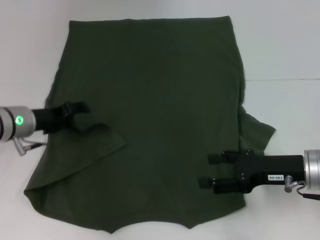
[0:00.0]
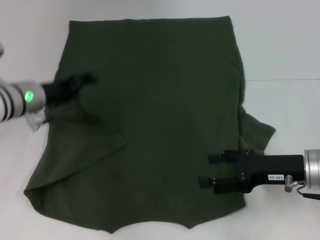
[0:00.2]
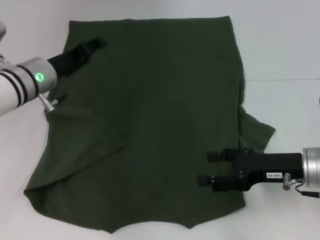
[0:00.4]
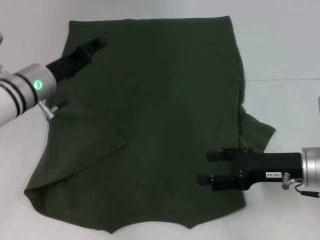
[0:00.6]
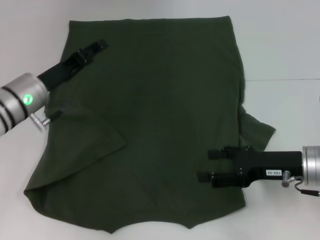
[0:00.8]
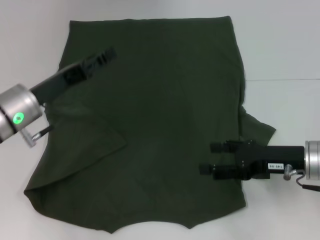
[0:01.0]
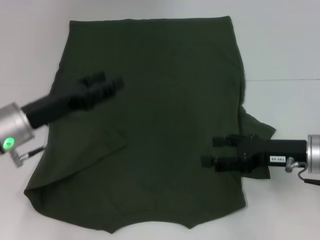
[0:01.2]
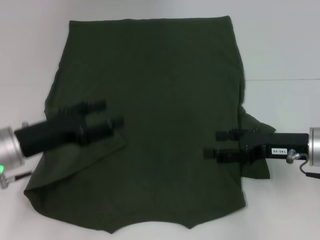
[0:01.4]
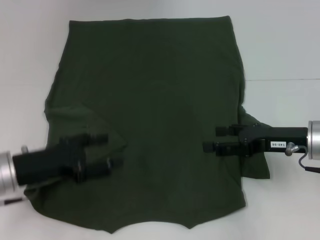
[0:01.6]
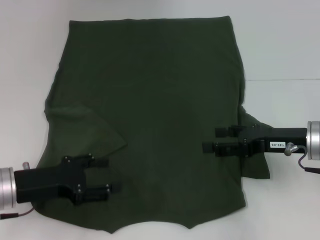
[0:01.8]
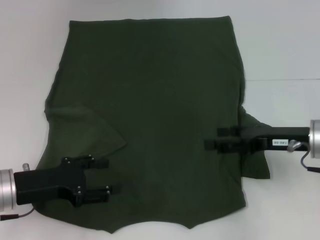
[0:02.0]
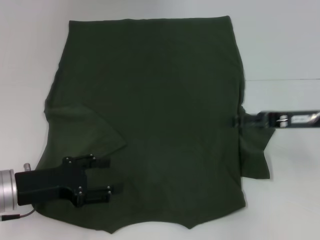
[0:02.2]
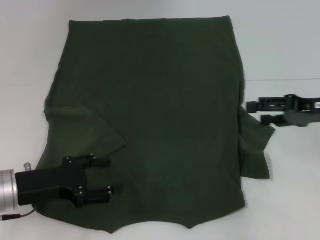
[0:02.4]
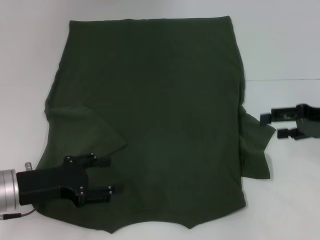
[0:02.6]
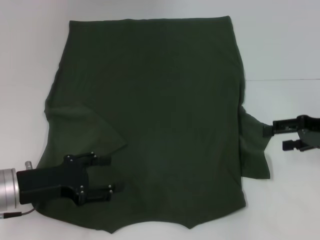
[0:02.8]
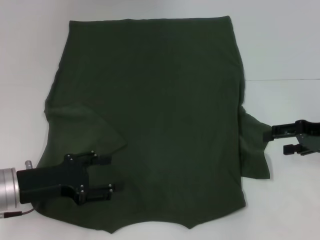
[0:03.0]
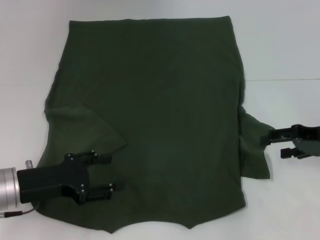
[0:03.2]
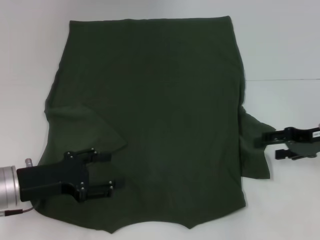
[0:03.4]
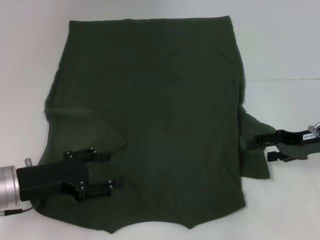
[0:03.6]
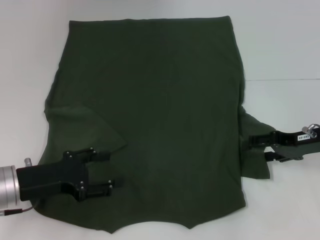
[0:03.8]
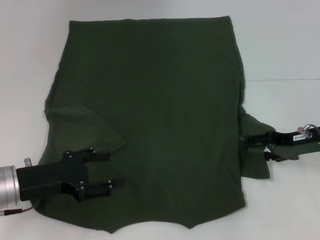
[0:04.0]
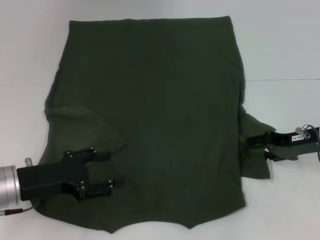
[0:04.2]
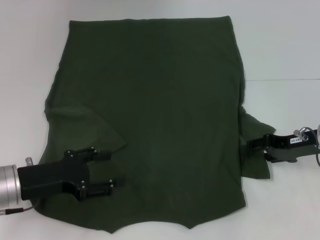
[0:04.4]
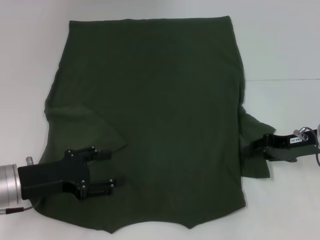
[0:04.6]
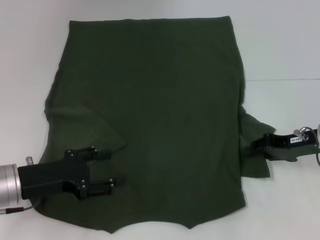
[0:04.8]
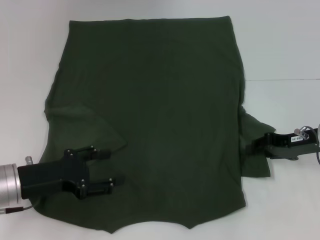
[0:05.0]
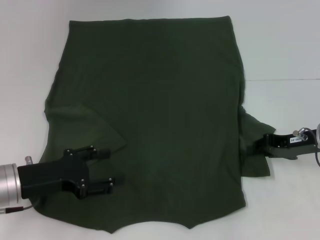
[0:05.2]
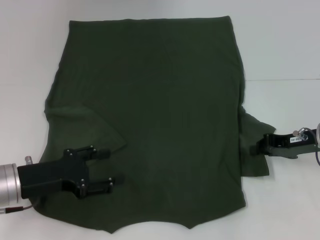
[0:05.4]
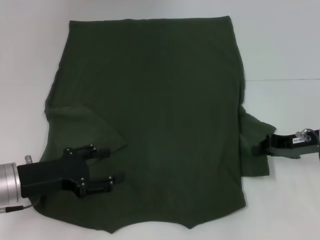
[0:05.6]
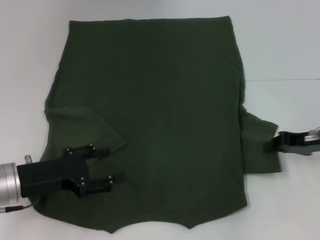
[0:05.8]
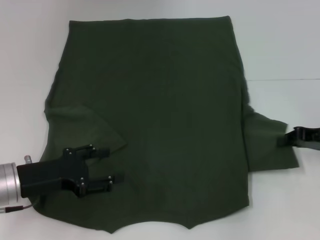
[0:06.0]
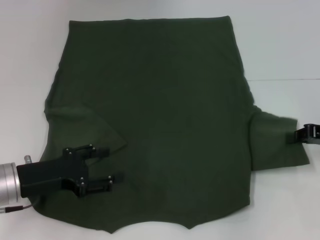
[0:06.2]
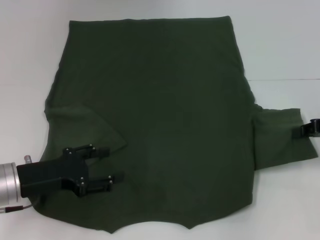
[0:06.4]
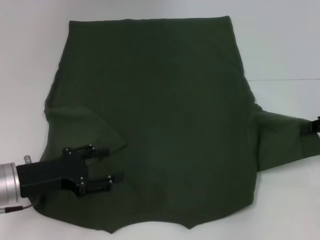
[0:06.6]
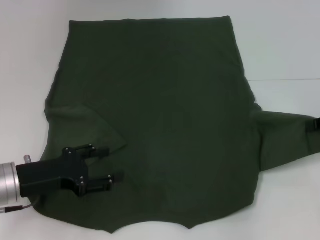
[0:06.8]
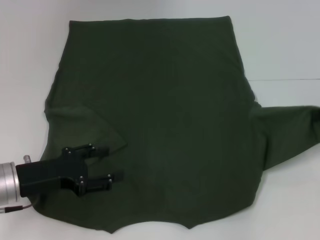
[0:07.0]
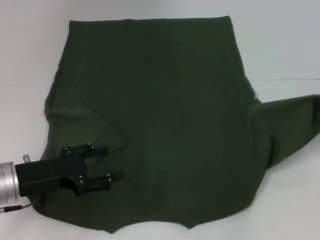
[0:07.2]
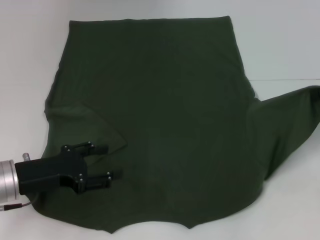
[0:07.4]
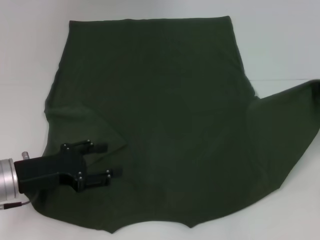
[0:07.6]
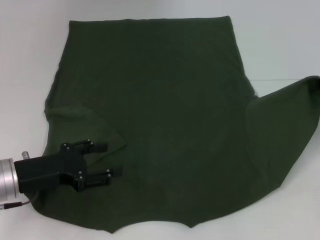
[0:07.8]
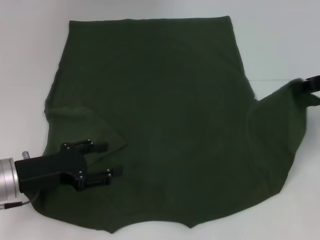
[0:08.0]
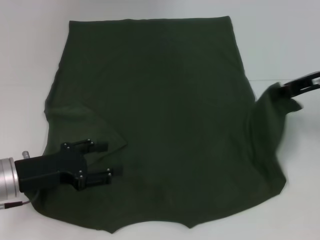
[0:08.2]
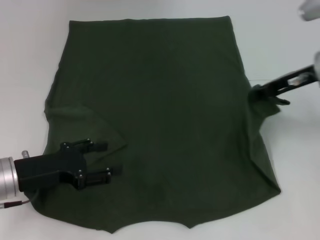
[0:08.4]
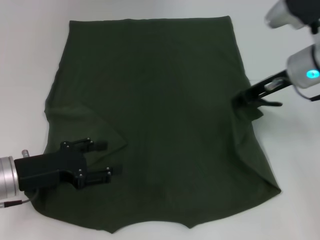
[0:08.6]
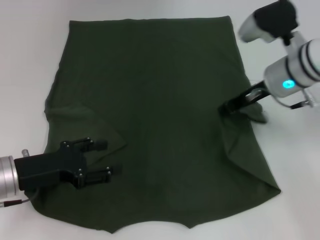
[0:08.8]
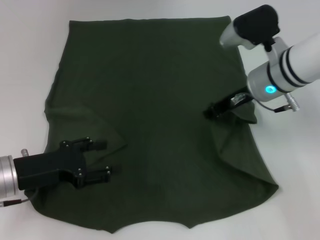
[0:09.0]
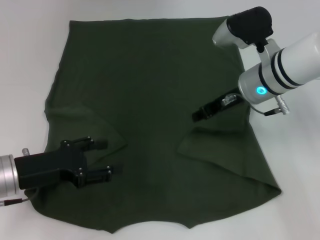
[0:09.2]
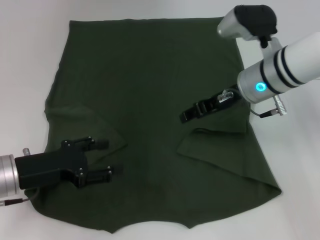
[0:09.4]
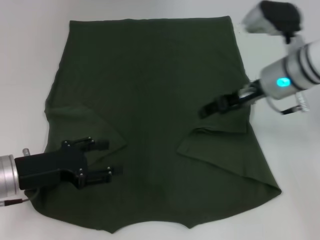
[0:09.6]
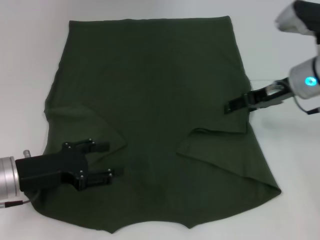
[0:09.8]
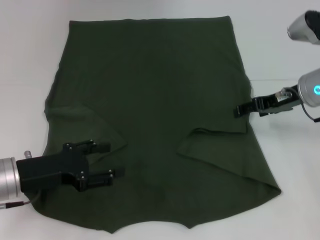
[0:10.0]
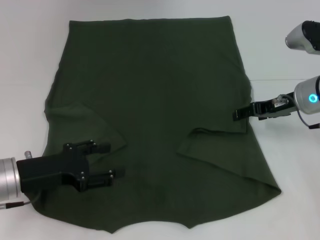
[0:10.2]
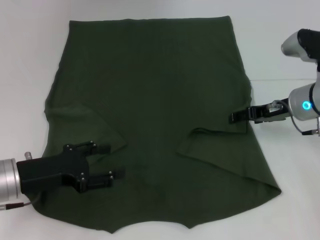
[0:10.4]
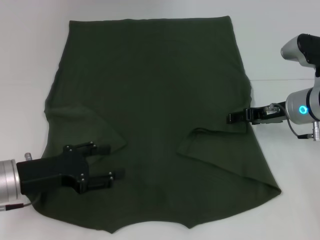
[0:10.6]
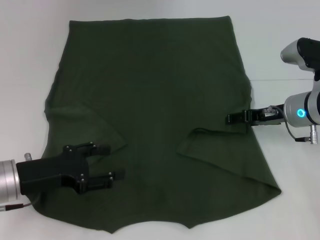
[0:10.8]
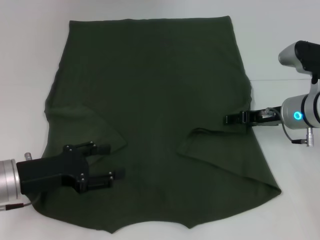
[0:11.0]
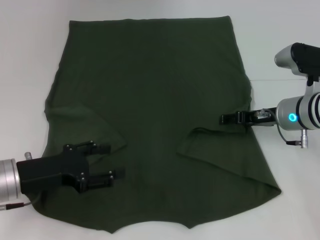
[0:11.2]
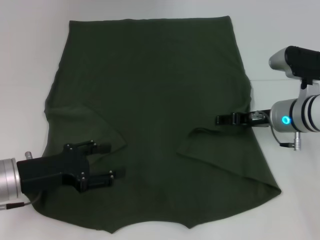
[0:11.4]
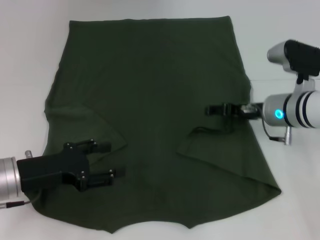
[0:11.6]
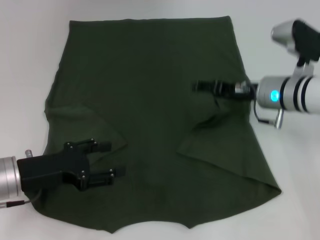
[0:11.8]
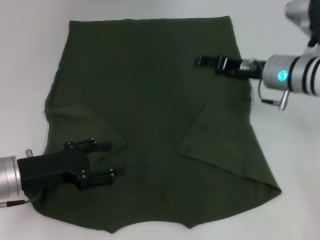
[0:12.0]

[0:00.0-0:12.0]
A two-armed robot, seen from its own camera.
Step, 0:00.8 to 0:11.8: Fold the bottom right sleeve with your right hand.
0:00.0 to 0:01.6: The left gripper is displaced backward by some 10 cm.
0:01.6 to 0:03.0: The right gripper goes about 10 cm to the right.
0:03.0 to 0:04.4: The right gripper ends up roughly 5 cm from where it was.
0:04.4 to 0:06.0: The right gripper closes up.
0:06.0 to 0:07.6: The right gripper moves upward, about 10 cm.
0:07.6 to 0:09.0: The right gripper heads to the left, covering approximately 20 cm.
0:09.0 to 0:10.4: The right gripper heads to the right, covering about 5 cm, and opens.

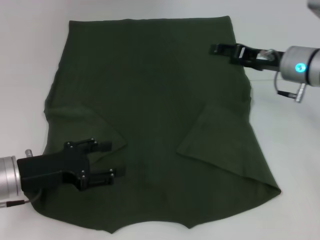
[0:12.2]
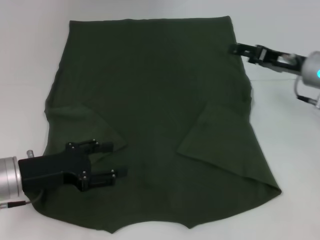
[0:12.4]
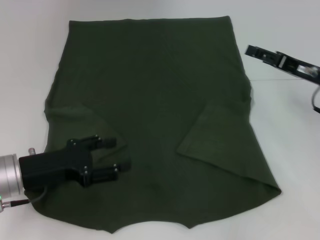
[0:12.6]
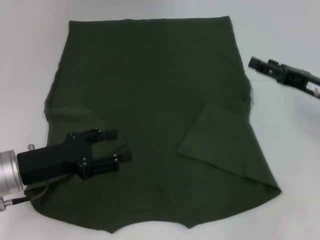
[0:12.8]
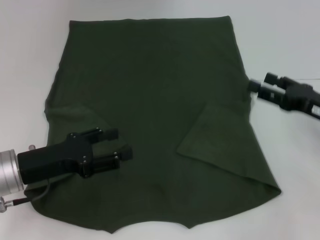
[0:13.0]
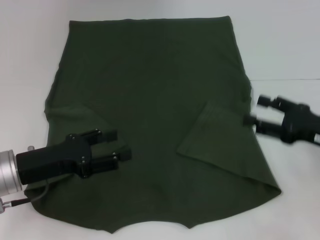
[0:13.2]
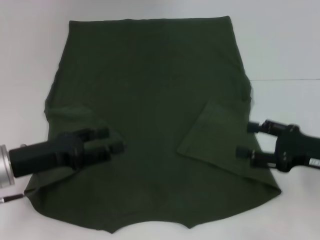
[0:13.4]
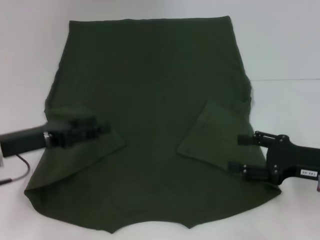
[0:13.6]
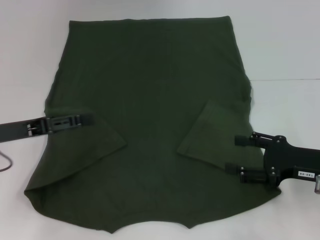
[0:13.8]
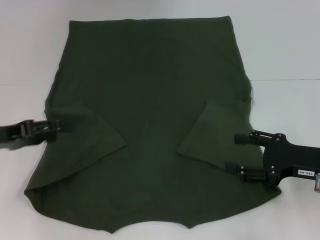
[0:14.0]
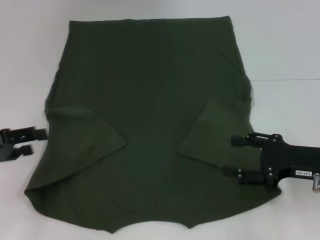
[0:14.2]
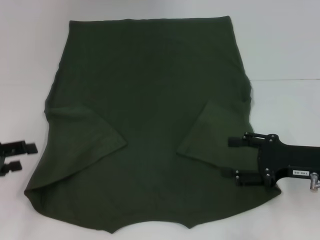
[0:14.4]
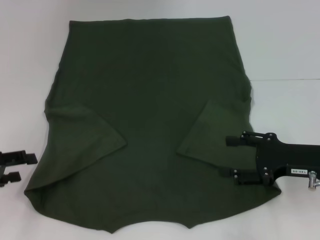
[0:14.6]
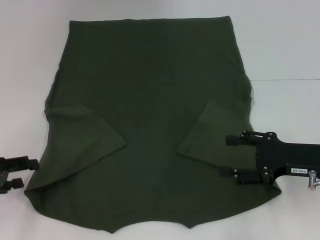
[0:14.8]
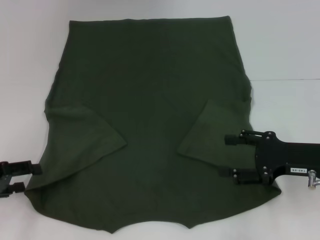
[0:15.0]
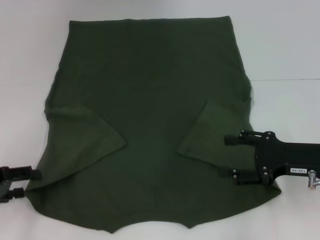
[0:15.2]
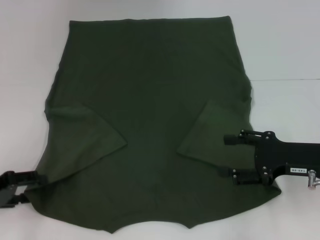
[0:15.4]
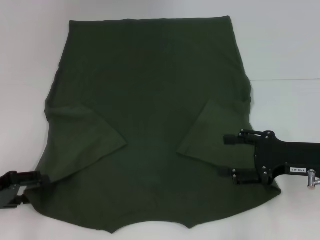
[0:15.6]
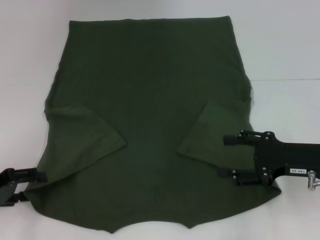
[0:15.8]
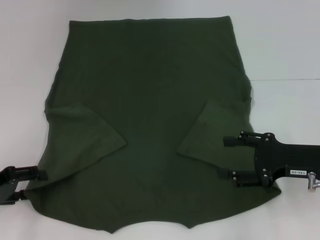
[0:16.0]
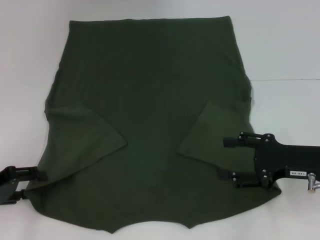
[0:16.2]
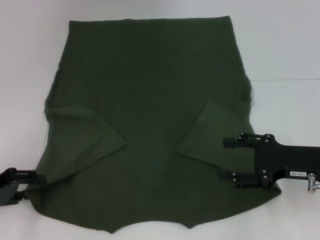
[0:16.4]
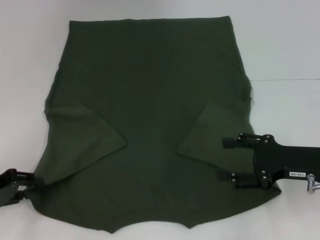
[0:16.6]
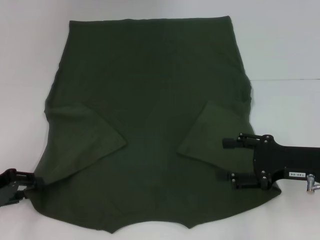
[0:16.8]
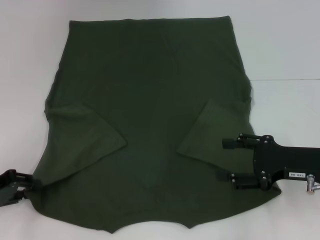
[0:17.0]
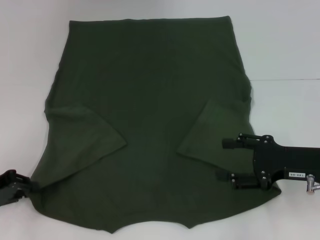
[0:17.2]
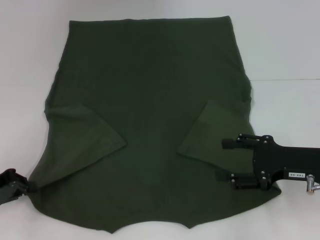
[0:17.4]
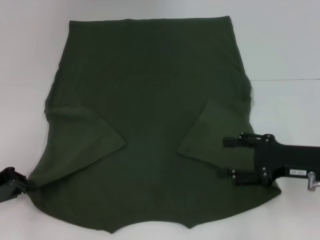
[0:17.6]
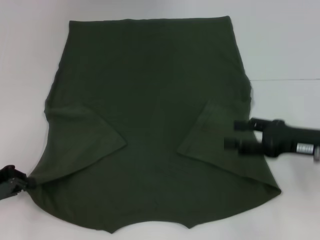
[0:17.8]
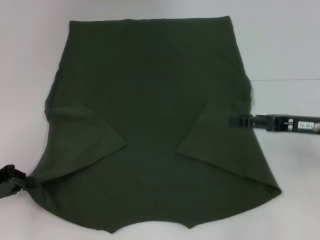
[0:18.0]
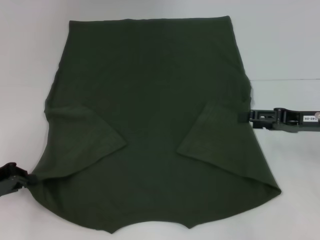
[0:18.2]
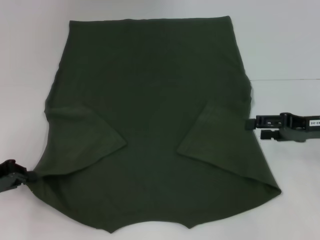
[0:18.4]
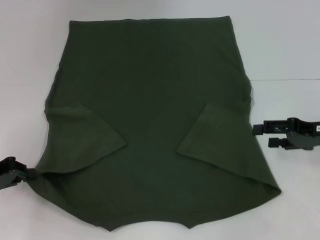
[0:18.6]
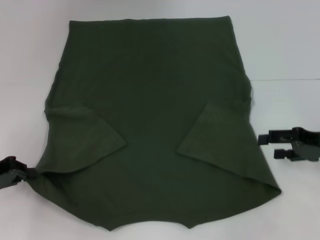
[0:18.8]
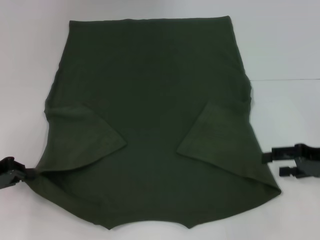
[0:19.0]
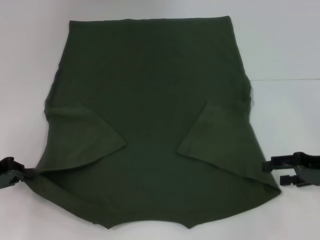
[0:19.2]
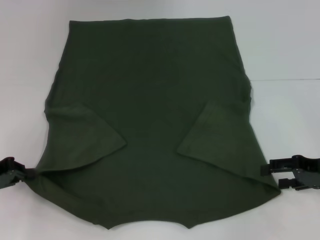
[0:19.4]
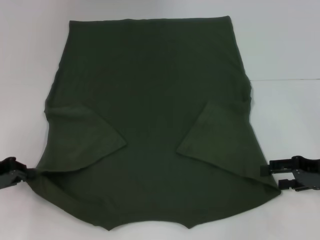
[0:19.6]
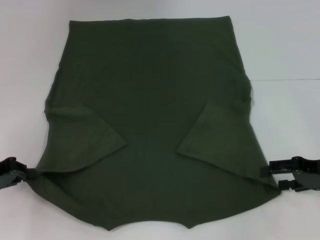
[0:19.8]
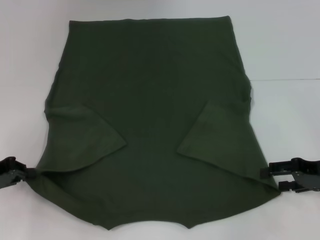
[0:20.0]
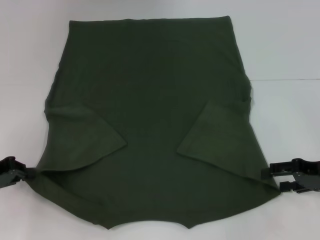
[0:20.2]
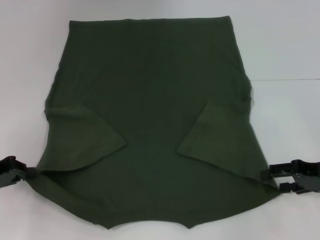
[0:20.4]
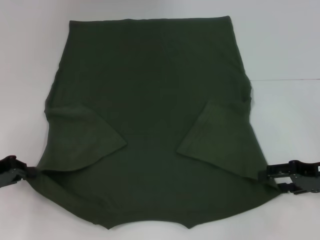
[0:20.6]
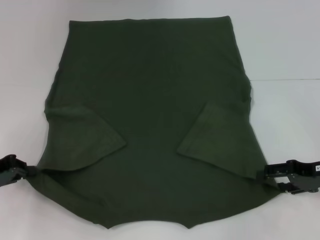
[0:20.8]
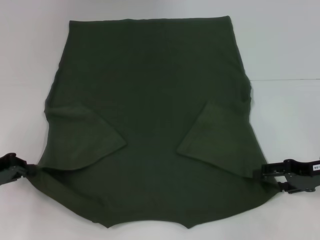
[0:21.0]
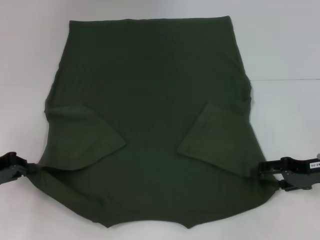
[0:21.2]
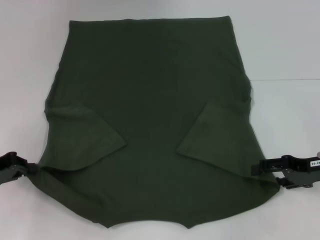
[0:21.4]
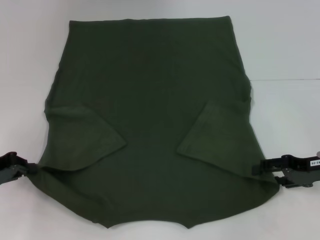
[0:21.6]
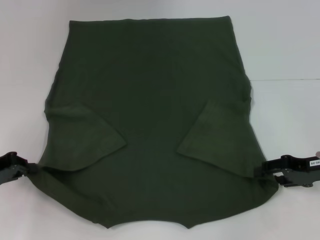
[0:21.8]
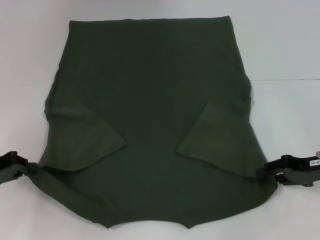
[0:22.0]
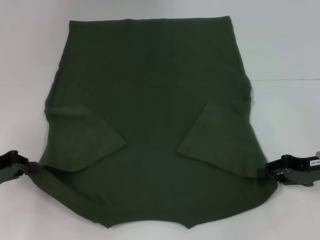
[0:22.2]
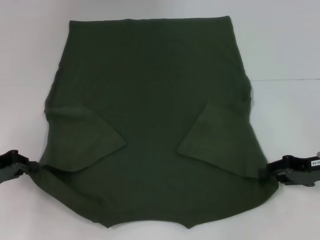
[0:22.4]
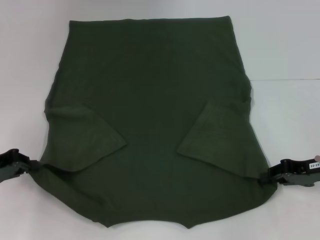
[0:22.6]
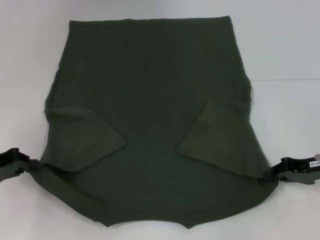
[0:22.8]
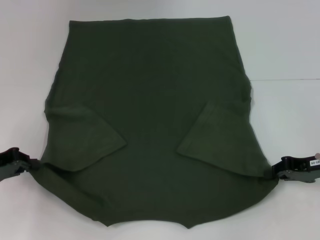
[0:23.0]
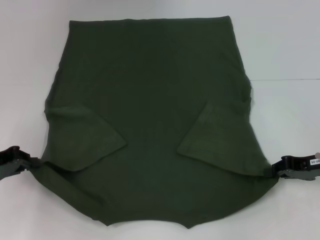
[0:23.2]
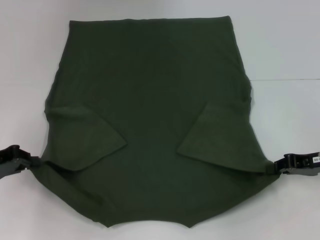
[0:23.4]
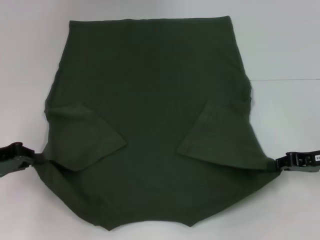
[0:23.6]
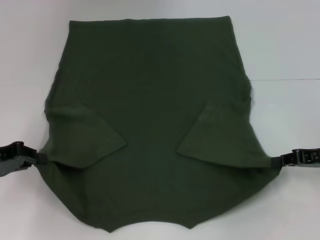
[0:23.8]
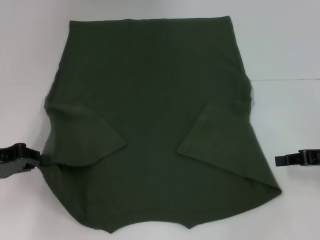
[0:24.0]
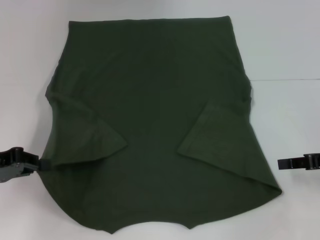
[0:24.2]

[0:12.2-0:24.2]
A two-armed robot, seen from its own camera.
Step, 0:12.2 to 0:17.6: Grab the bottom left corner with your left hand.
0:12.2 to 0:13.8: The right gripper heads backward and downward, covering roughly 15 cm. The left gripper ends up about 5 cm from where it was.
0:13.8 to 0:15.2: The left gripper moves to the left, roughly 5 cm.
0:15.2 to 0:16.6: The two grippers keep their place.
0:16.6 to 0:18.2: The right gripper goes approximately 5 cm forward, while the left gripper closes its fingers.
0:18.2 to 0:19.8: The right gripper changes place by some 5 cm.
0:19.8 to 0:21.2: The grippers stay close to where they were, moving slightly.
0:21.2 to 0:22.6: The right gripper closes.
